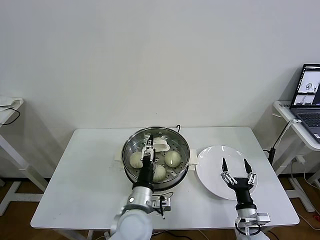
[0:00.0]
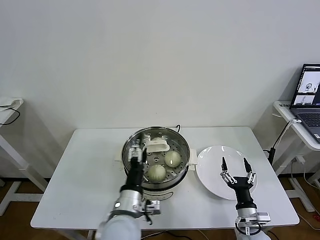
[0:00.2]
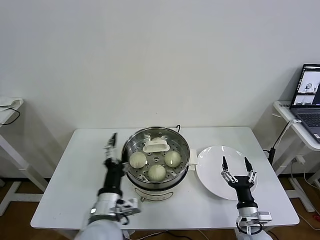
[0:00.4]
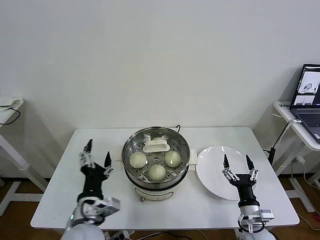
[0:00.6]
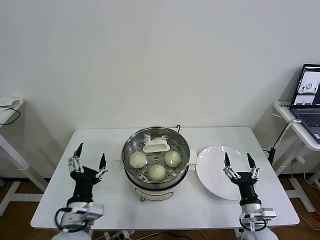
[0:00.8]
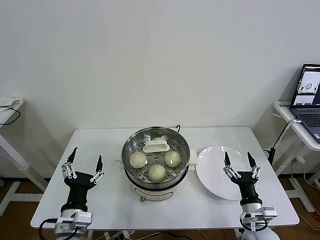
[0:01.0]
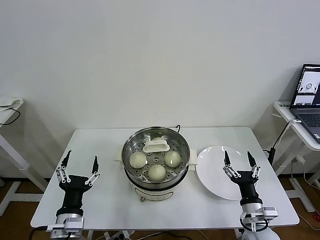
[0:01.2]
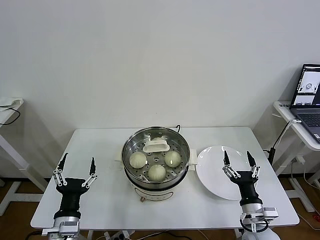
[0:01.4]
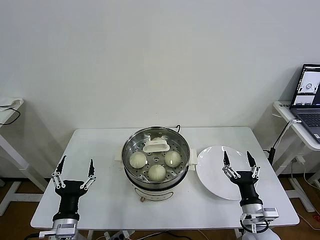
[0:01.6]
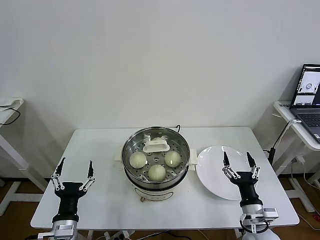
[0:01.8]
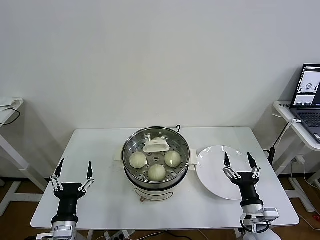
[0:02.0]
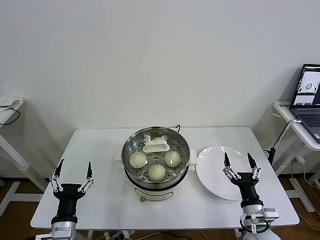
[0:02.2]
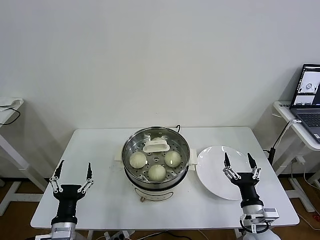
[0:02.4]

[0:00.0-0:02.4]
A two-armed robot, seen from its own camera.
Task of the whole recording: take steamed baozi put them in steamer then cover it.
0:00.0 to 0:01.2: The right gripper heads upward, covering about 5 cm. The left gripper travels to the left and backward by approximately 20 cm.
0:01.2 to 0:02.4: The grippers stay close to where they were, moving slightly.

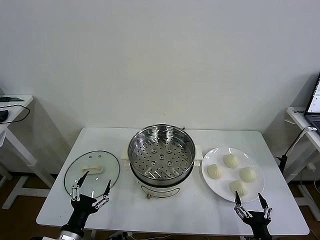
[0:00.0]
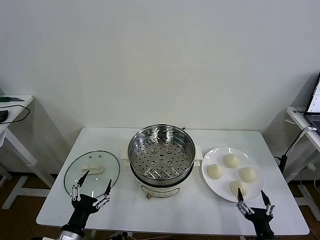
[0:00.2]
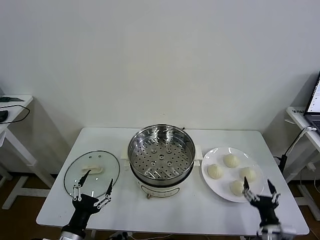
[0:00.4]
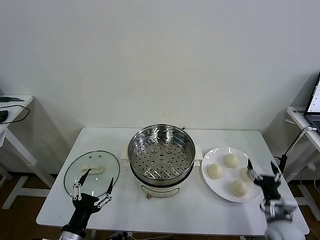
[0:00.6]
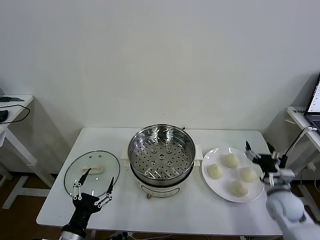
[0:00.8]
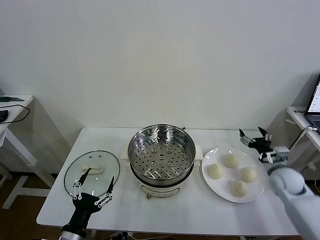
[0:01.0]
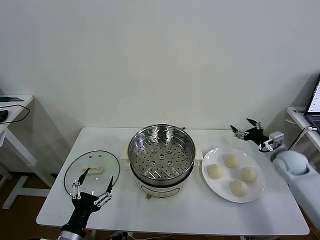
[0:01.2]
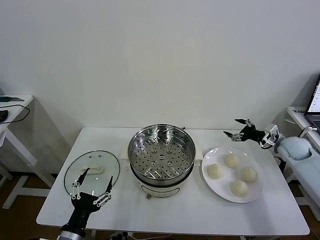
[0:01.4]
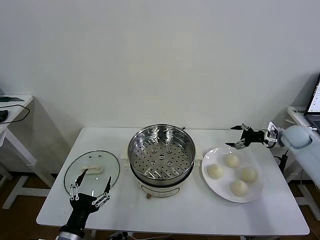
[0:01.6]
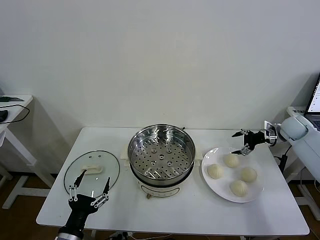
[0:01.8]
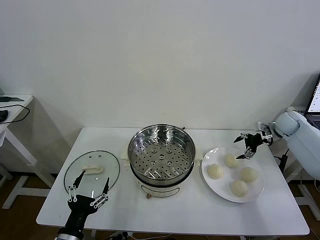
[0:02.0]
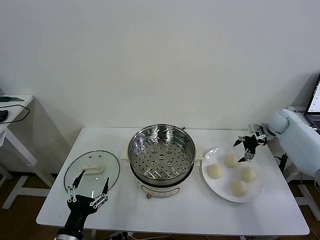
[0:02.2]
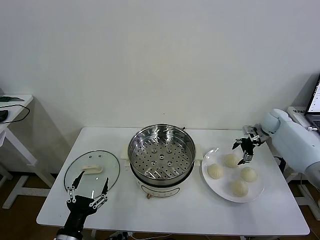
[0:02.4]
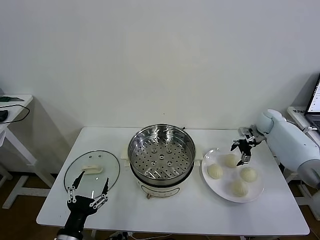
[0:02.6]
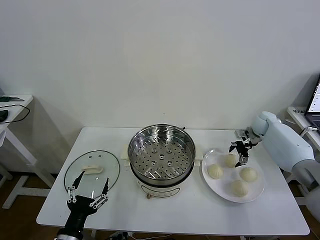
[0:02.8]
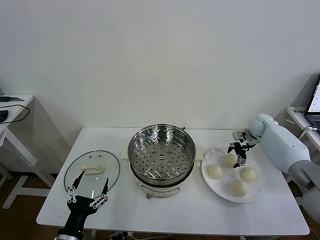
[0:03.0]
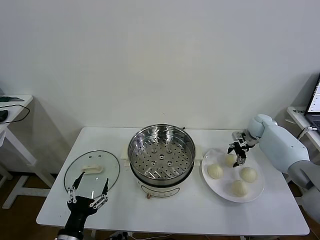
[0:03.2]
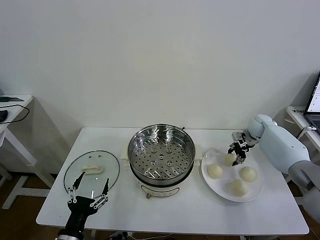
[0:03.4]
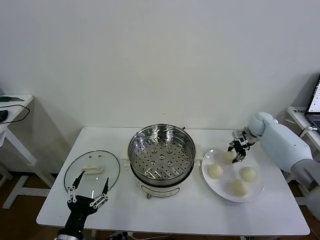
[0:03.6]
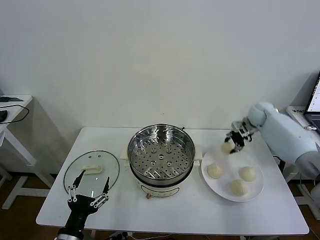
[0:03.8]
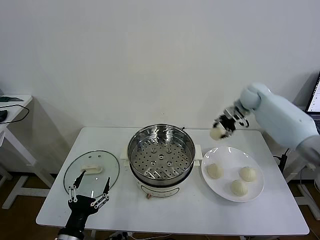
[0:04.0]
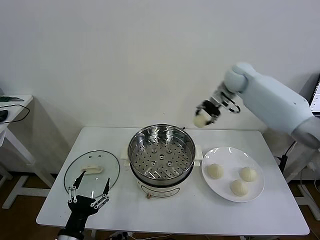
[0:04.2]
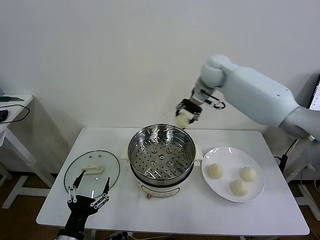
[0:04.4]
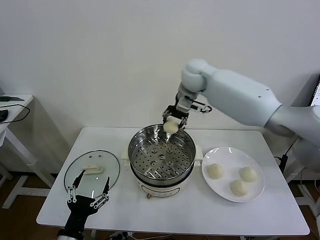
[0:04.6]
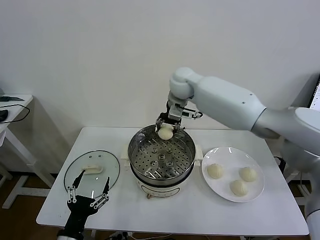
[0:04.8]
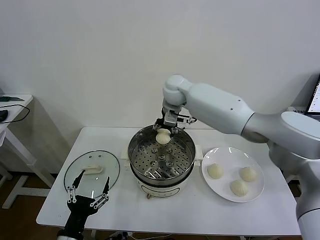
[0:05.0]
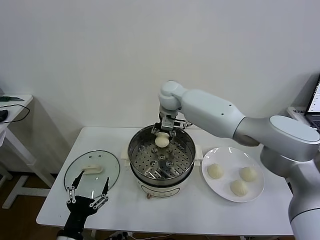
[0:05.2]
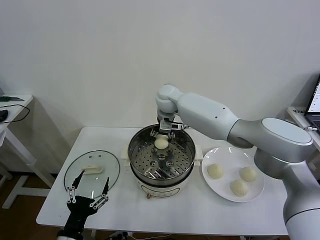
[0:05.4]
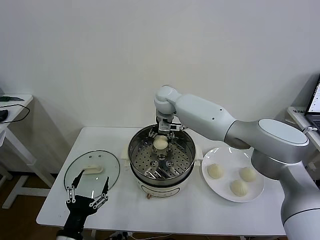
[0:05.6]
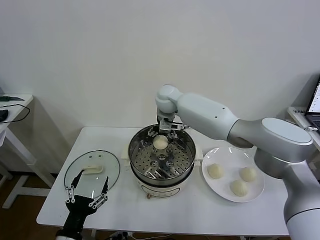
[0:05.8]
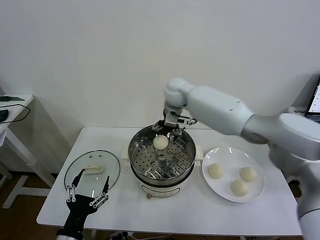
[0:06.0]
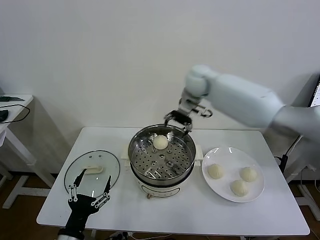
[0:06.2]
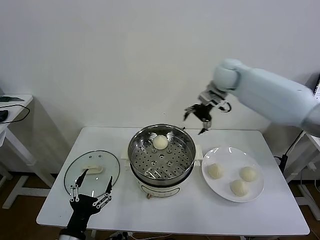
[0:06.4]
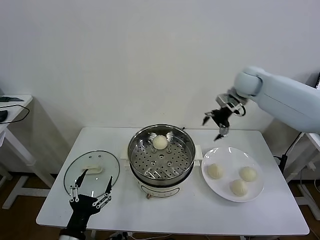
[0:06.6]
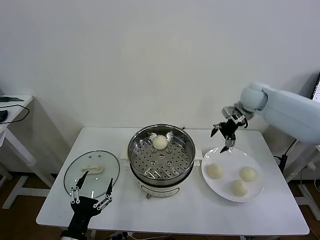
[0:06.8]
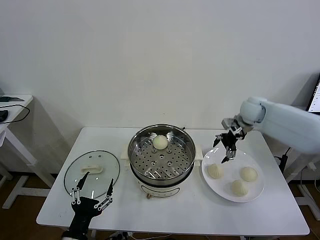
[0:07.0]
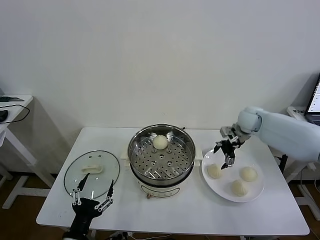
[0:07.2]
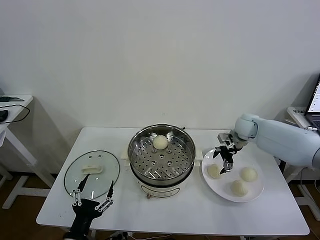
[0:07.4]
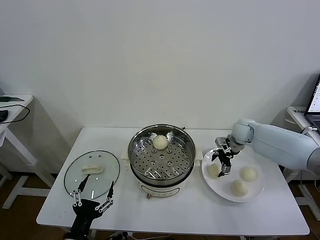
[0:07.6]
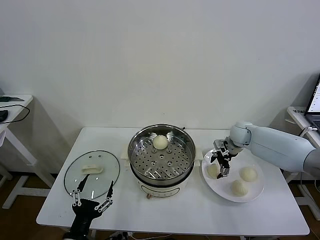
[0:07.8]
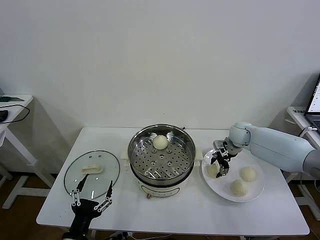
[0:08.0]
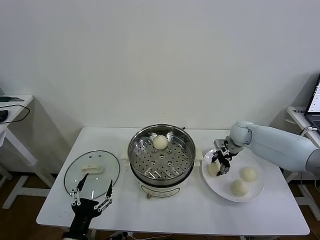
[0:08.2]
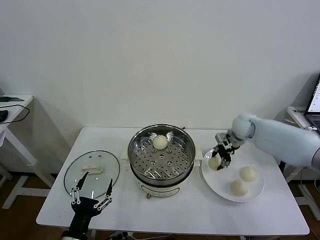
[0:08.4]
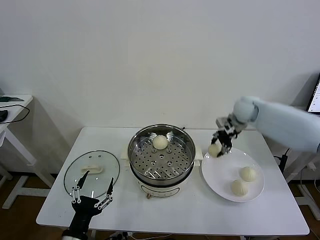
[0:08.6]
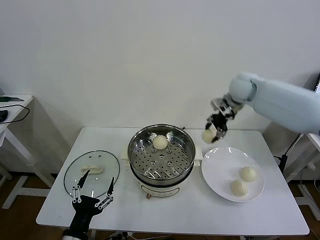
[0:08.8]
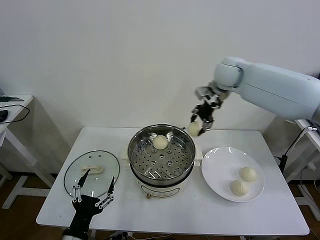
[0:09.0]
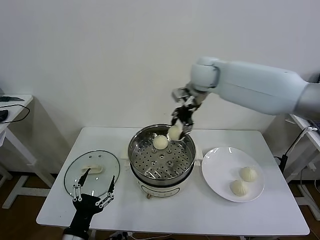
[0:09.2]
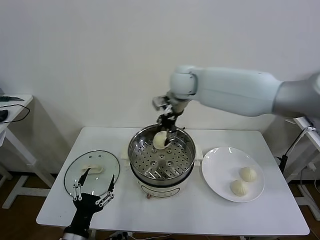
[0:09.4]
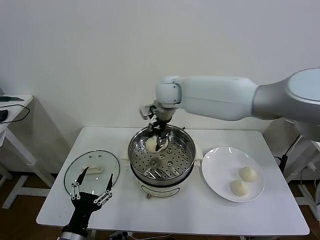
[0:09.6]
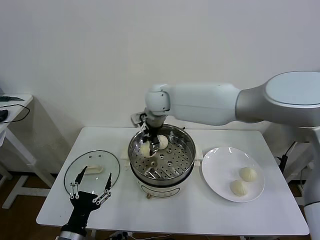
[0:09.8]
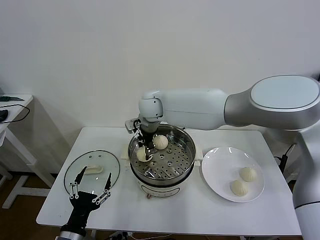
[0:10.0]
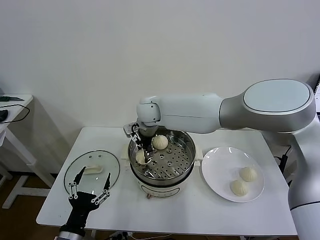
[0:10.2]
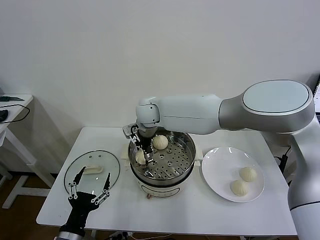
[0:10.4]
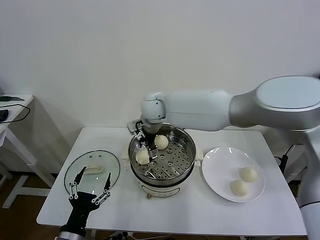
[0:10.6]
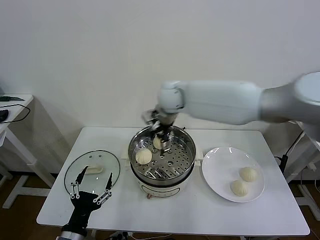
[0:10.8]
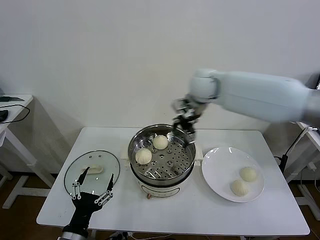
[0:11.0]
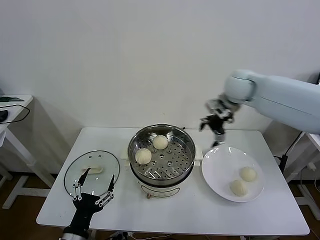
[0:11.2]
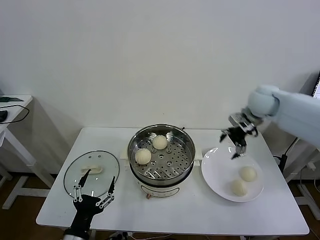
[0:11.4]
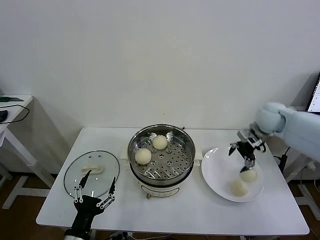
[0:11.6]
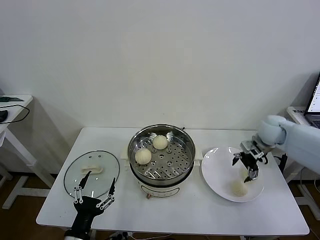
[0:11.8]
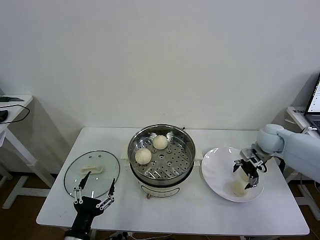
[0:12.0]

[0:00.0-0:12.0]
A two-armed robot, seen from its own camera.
Task of the whole recording: take steamed baozi put them in steamer then cover it.
Step, 0:00.0 to 0:03.4: Grasp the baozi in the plate with right gripper.
Step, 0:03.6 to 0:05.6: Place the baozi on the steamer with right gripper.
Step, 0:05.8 to 0:08.0: Grasp the baozi in the plate with right gripper.
Step, 0:08.2 to 0:10.4: Place the baozi on the steamer with right gripper.
0:01.6 to 0:03.0: The right gripper moves to the left and forward, about 10 cm.
0:03.0 to 0:04.4: The right gripper moves to the left and upward, roughly 35 cm, and closes up.
0:04.4 to 0:06.0: The right gripper is displaced to the left by roughly 5 cm, and opens up.
0:06.0 to 0:07.6: The right gripper shifts approximately 30 cm to the right and downward.
0:07.6 to 0:09.0: The right gripper goes approximately 30 cm upward and to the left, and closes up.
0:09.0 to 0:10.4: The right gripper travels to the left and downward by about 25 cm, and opens its fingers.
0:10.4 to 0:12.0: The right gripper goes about 40 cm to the right.

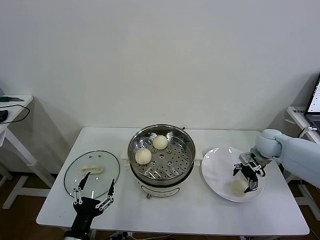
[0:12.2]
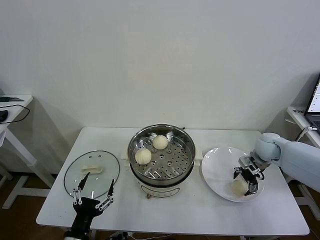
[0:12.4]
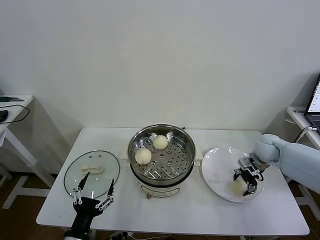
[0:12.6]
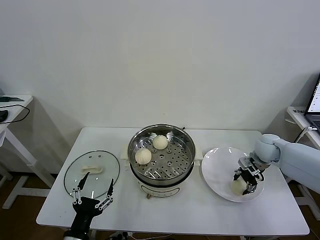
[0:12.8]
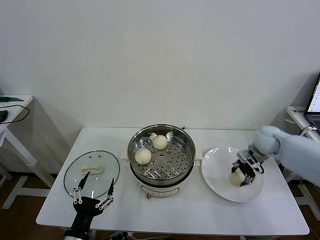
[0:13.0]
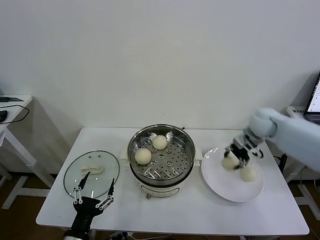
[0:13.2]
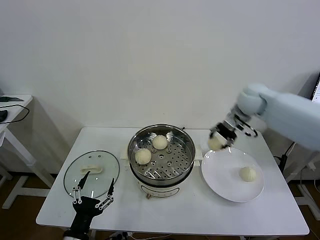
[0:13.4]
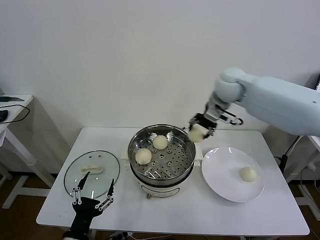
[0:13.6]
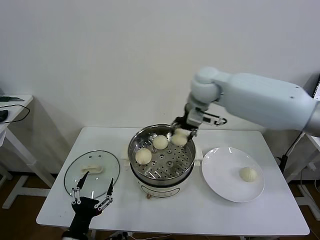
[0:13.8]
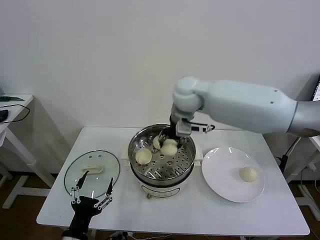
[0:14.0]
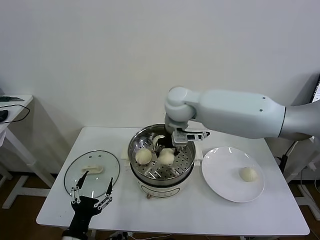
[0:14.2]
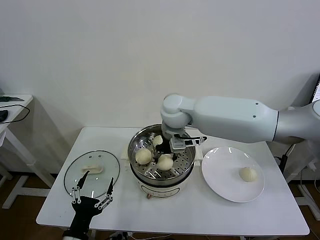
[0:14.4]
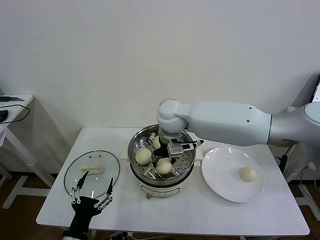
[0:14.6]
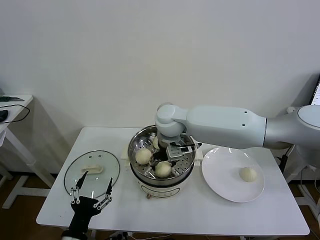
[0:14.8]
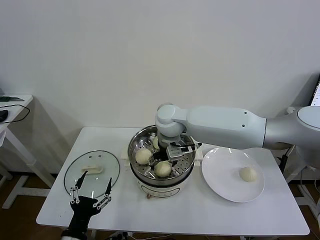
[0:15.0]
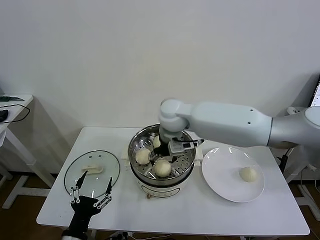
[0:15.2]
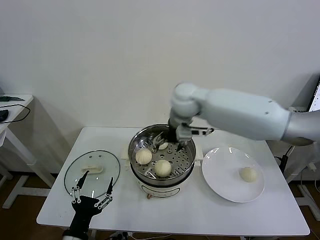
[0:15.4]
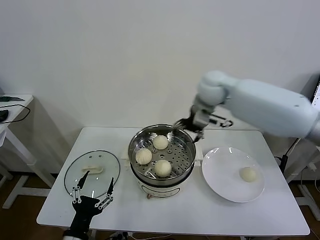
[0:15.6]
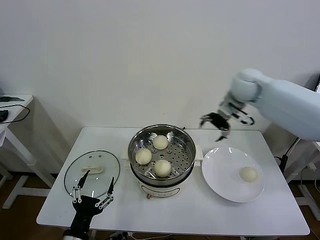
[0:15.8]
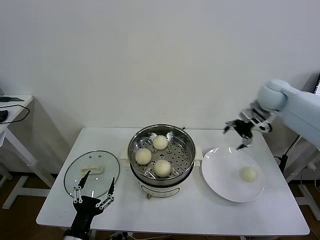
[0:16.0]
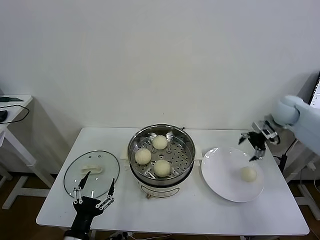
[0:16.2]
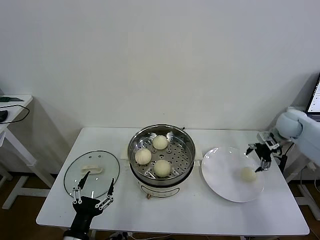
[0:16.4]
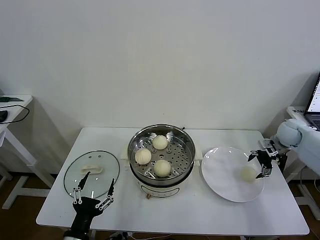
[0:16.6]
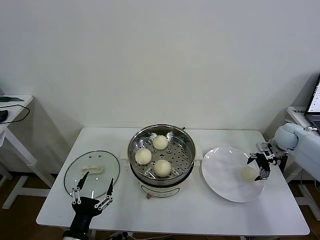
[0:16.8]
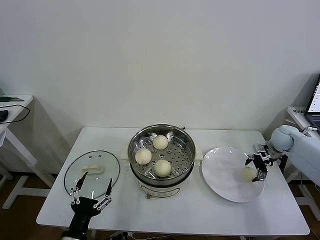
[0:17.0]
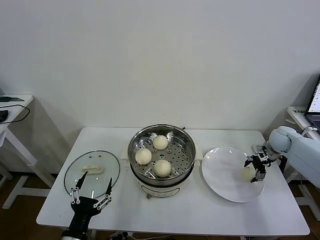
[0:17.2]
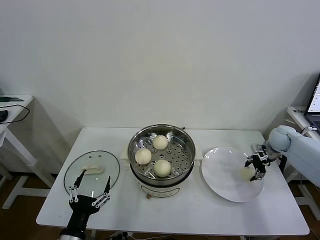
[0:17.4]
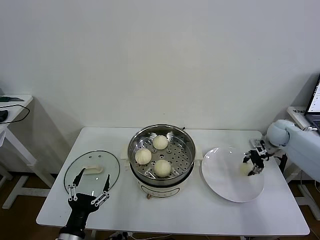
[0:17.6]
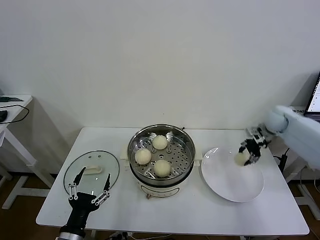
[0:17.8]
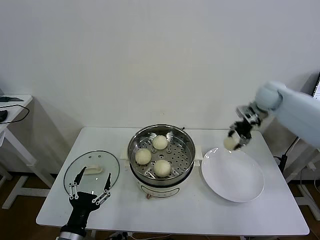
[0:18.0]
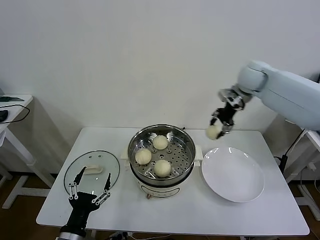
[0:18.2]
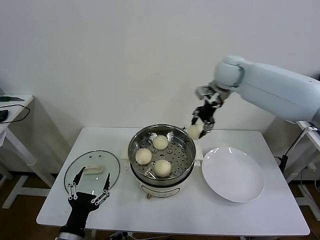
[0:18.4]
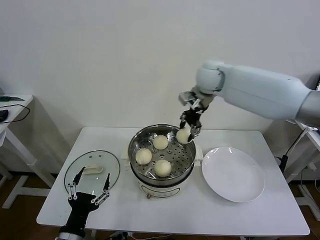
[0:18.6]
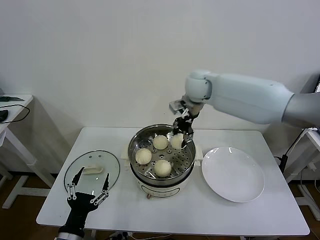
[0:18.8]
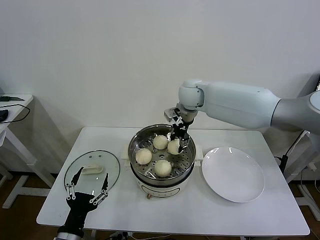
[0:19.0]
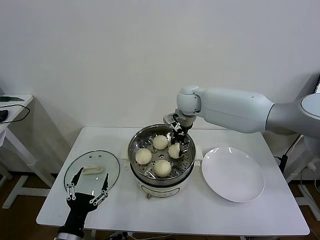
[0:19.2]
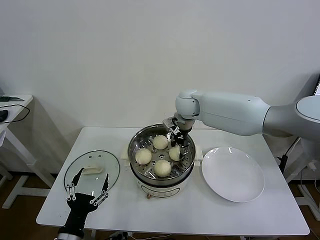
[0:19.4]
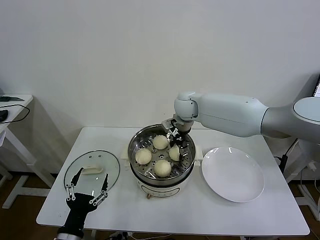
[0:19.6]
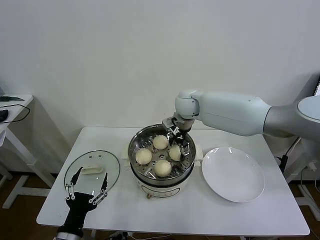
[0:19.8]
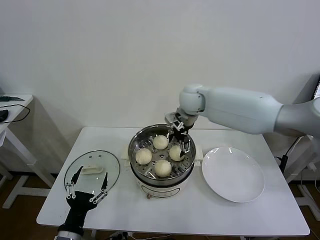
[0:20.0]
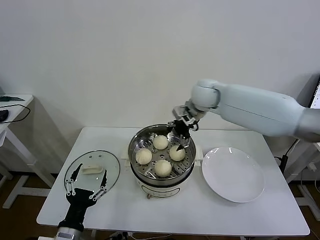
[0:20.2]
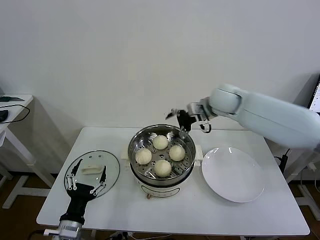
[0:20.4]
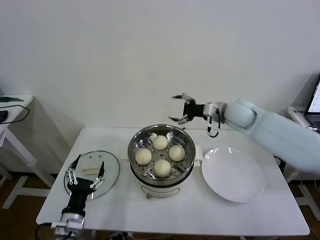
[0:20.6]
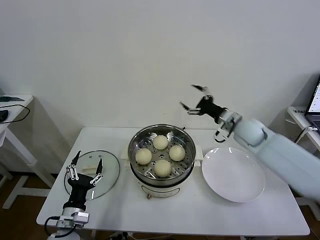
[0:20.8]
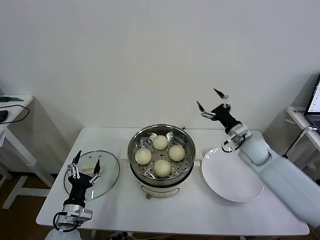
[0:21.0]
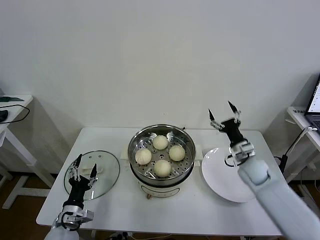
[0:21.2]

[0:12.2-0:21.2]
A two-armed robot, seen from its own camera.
Task of the whole recording: take steamed baozi put them in steamer then cover it.
Step, 0:12.8 to 0:15.0: Place the baozi on the steamer with right gripper.
Step, 0:15.2 to 0:17.4: Grasp the baozi in the plate with right gripper.
Step, 0:17.6 to 0:19.8: Place the baozi on the steamer with right gripper.
0:12.2 to 0:13.8: The right gripper travels to the left and upward by roughly 35 cm, and closes its fingers.
0:13.8 to 0:15.2: The right gripper goes approximately 10 cm to the left and downward, and opens its fingers.
0:15.2 to 0:16.6: The right gripper is displaced to the right by approximately 40 cm.
0:16.6 to 0:18.2: The right gripper moves to the left and upward, approximately 25 cm, and closes up.
0:18.2 to 0:19.8: The right gripper heads to the left and downward, covering some 20 cm, and opens.
0:19.8 to 0:21.2: The right gripper shifts approximately 35 cm to the right, downward and backward. The left gripper travels forward and downward by approximately 15 cm.
